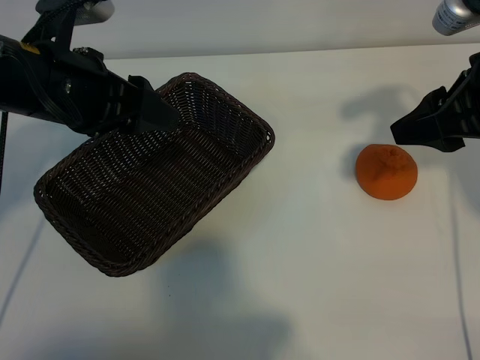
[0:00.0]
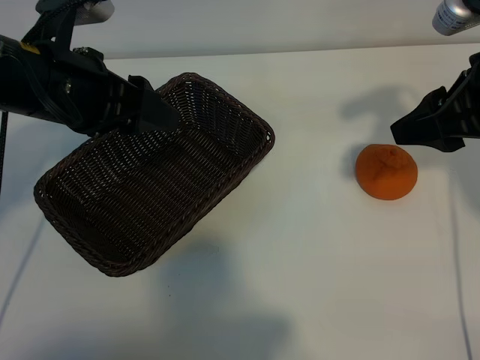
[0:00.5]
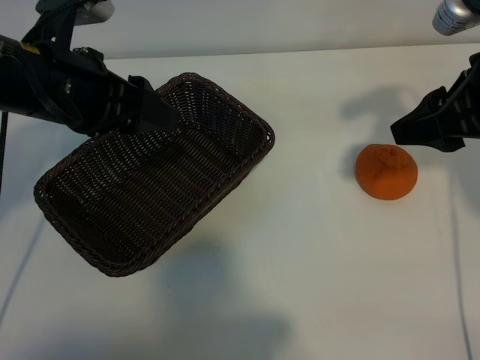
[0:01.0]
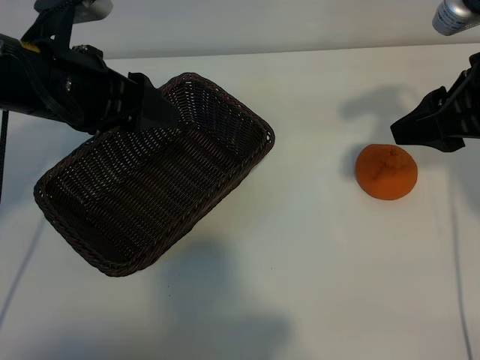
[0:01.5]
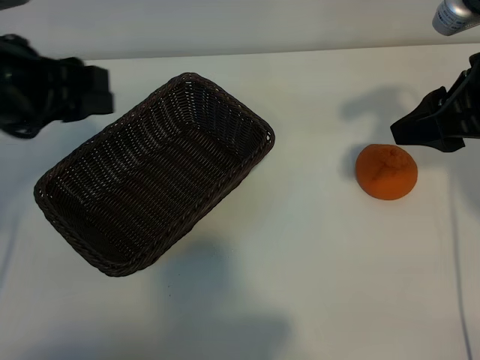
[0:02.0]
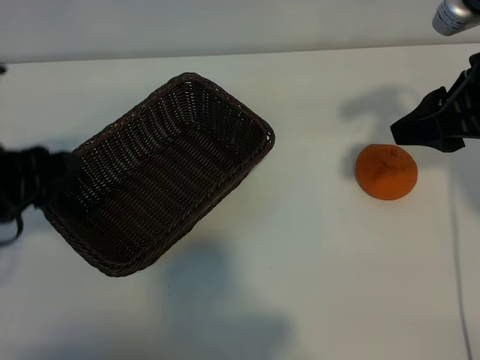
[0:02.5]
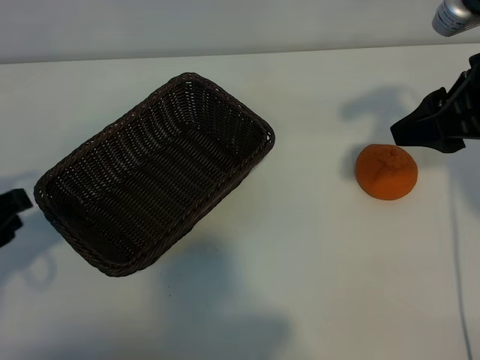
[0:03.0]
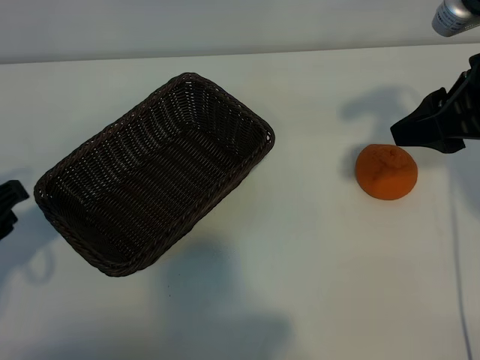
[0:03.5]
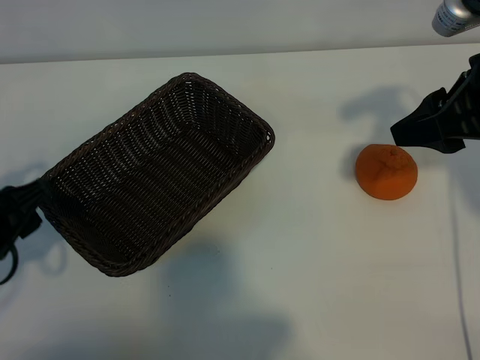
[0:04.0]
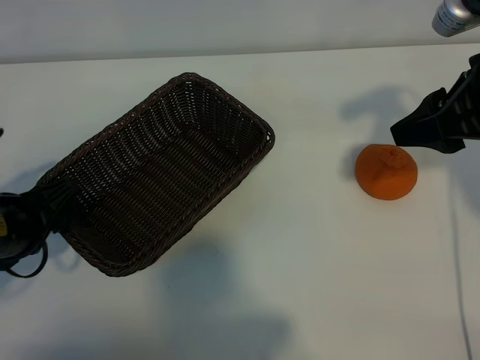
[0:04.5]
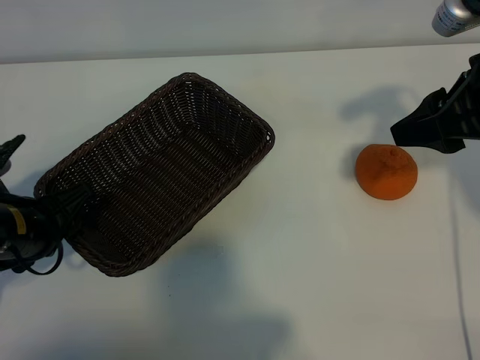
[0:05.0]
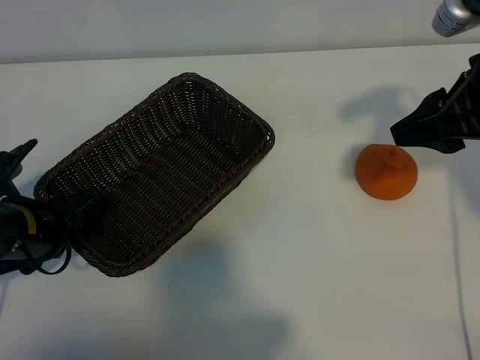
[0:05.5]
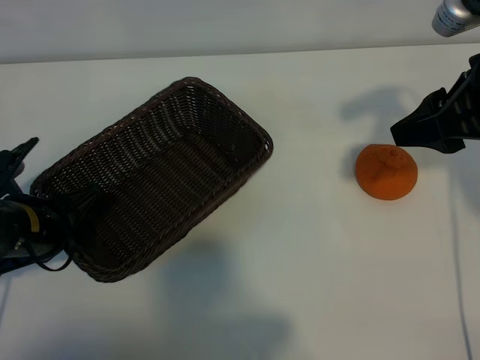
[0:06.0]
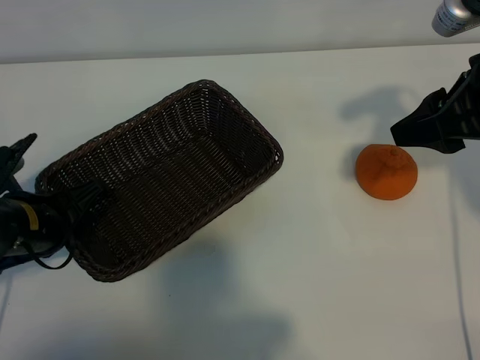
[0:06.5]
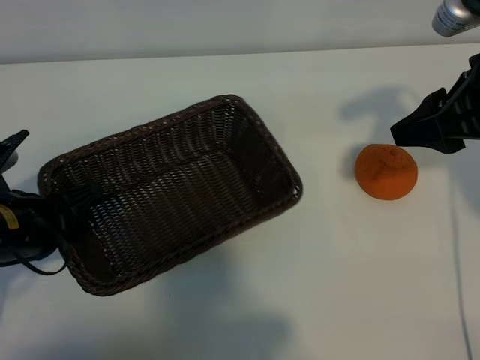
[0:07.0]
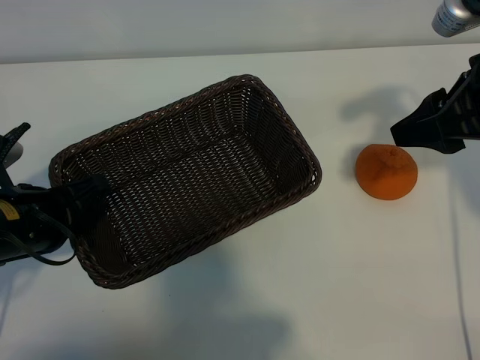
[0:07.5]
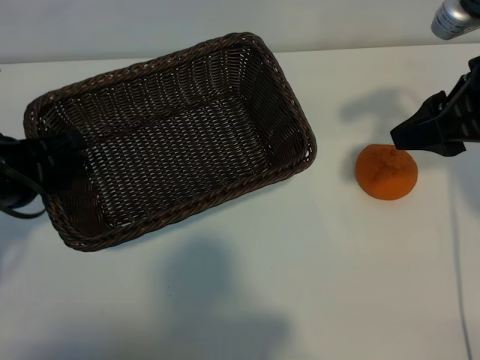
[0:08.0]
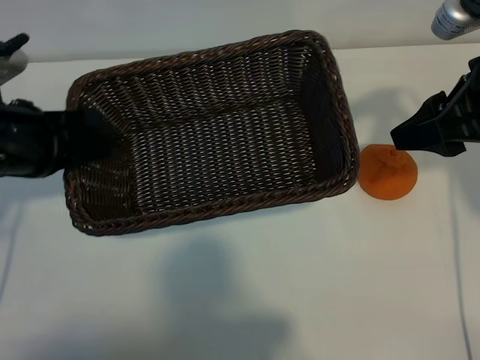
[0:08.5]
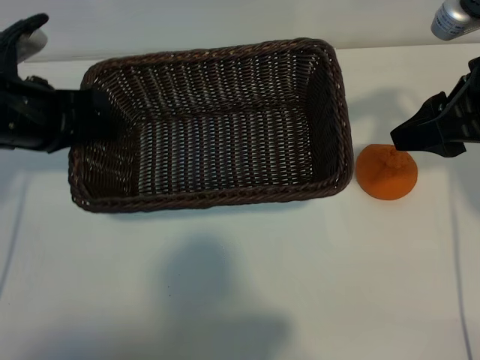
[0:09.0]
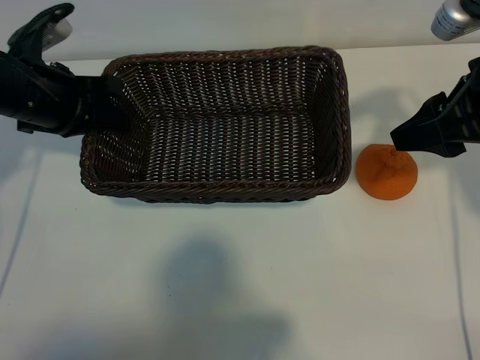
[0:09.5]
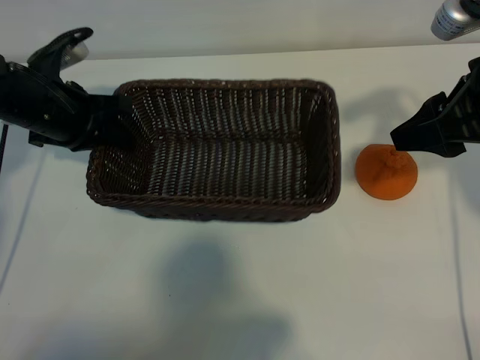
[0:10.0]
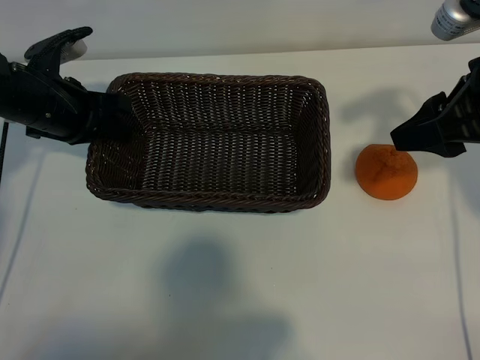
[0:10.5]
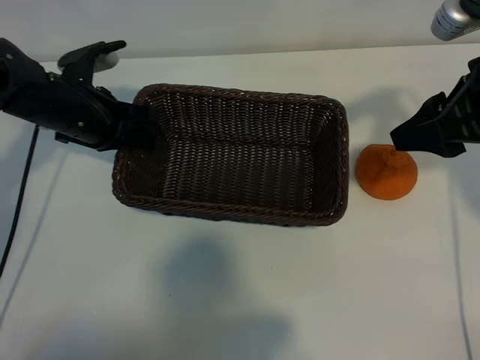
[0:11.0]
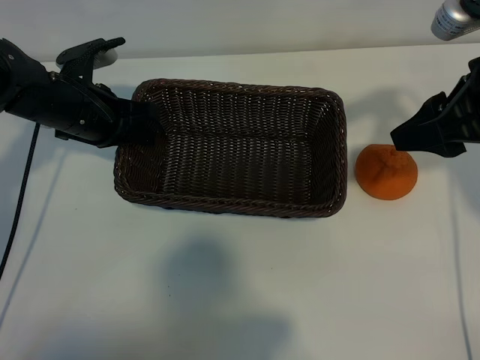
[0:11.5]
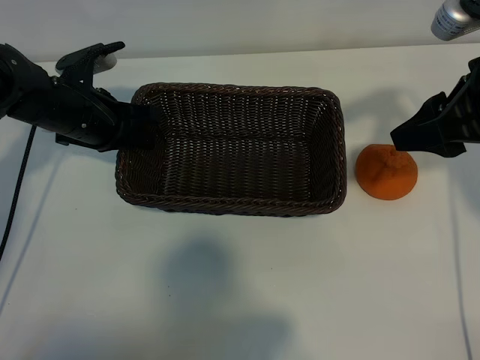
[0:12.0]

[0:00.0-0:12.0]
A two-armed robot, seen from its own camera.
Task of the whole recording: pick up the orange and put it into the basket.
Step, 0:01.5 to 0:06.0: Grasp the basket with left gripper.

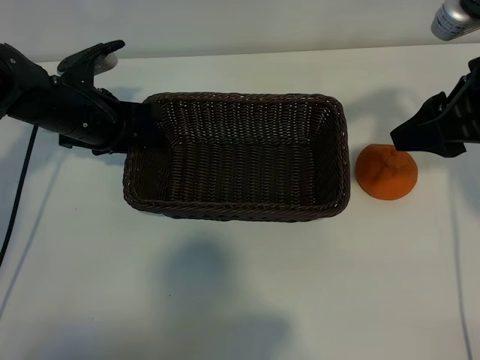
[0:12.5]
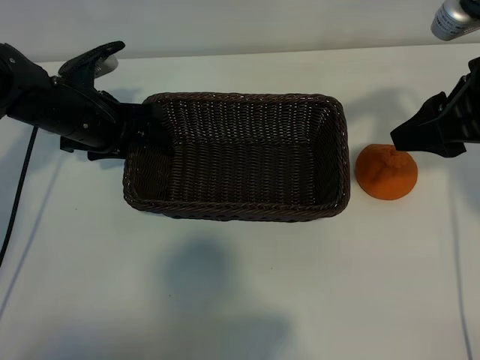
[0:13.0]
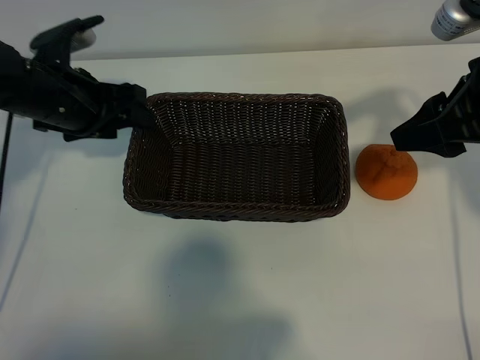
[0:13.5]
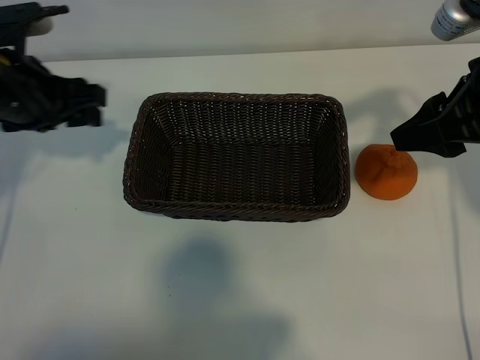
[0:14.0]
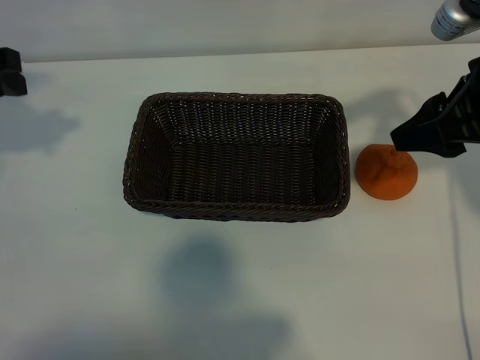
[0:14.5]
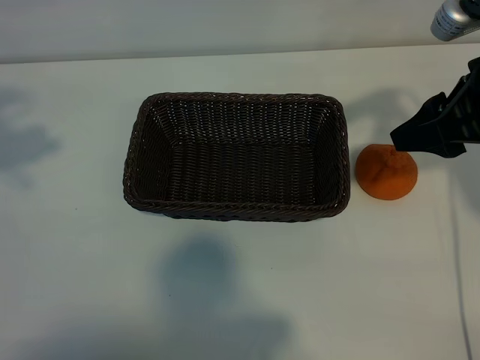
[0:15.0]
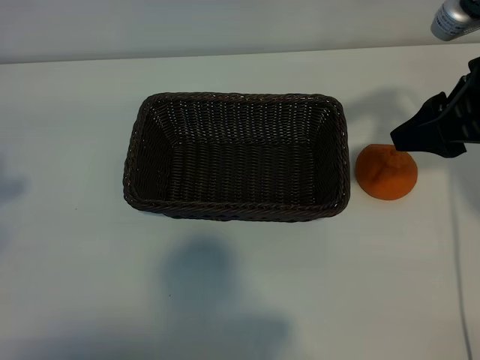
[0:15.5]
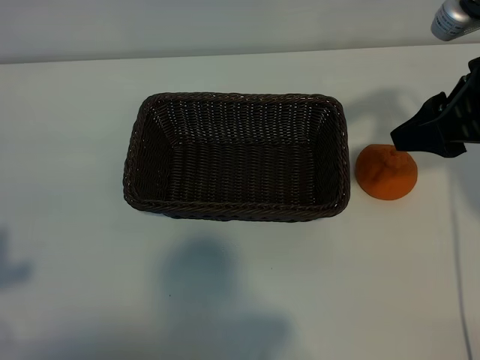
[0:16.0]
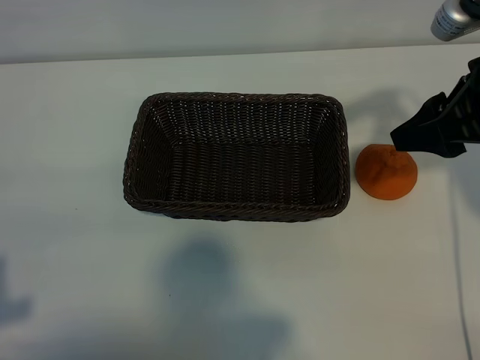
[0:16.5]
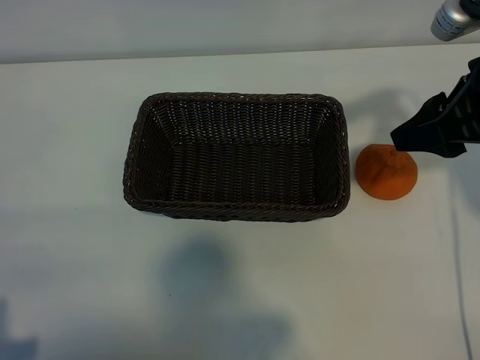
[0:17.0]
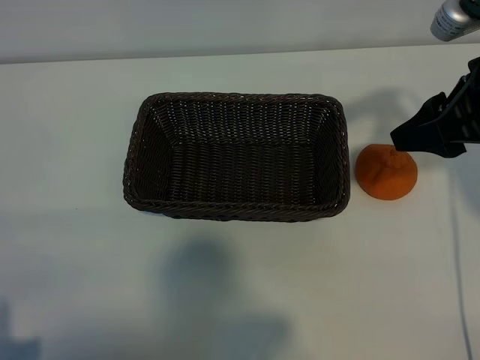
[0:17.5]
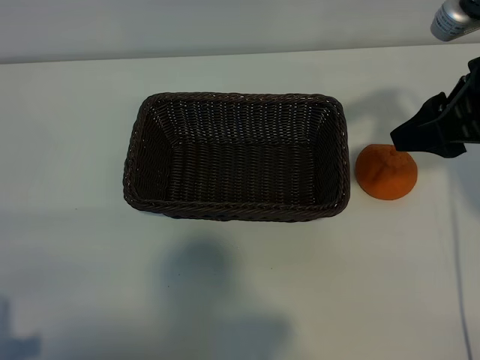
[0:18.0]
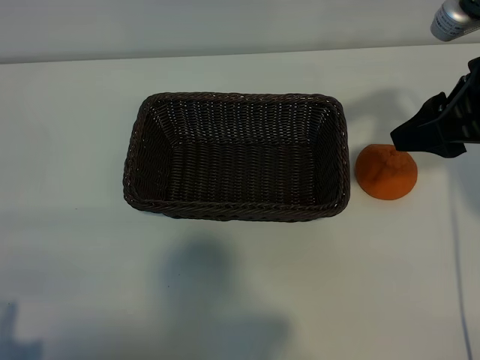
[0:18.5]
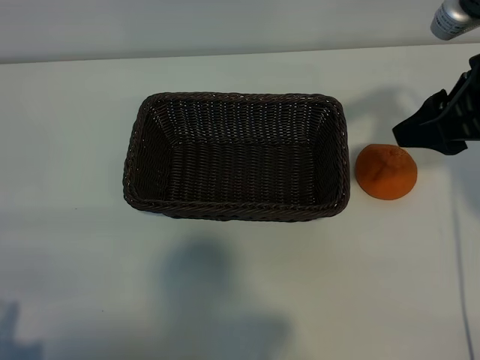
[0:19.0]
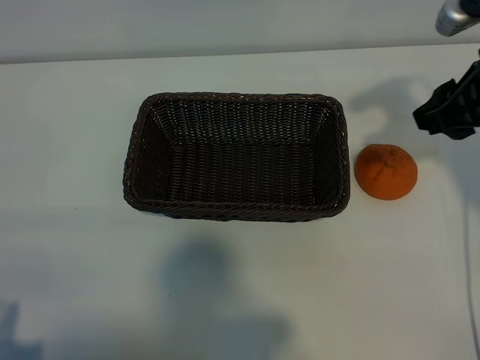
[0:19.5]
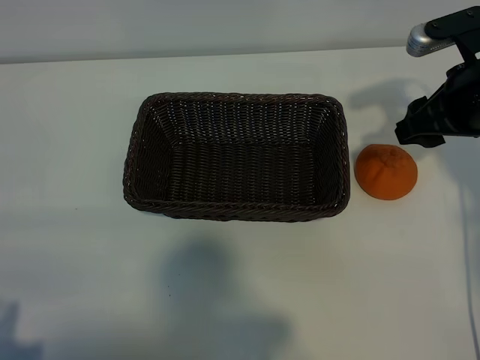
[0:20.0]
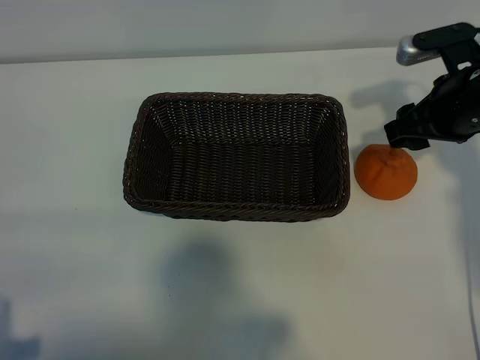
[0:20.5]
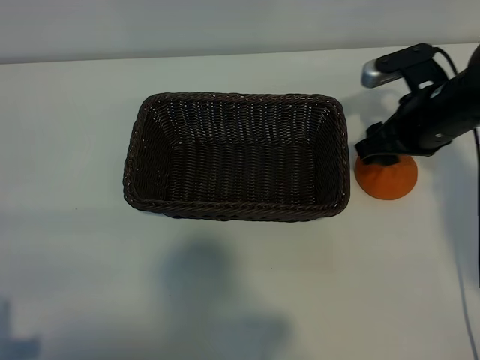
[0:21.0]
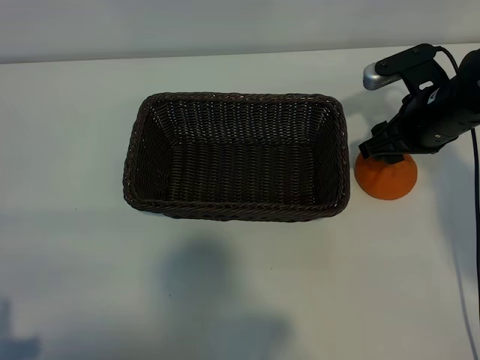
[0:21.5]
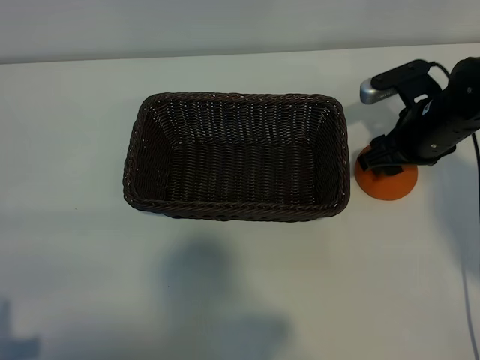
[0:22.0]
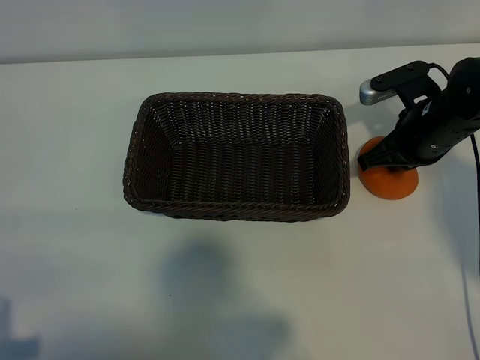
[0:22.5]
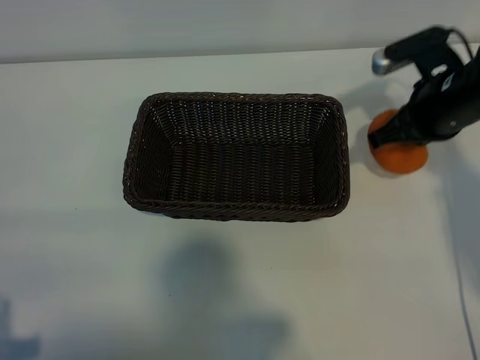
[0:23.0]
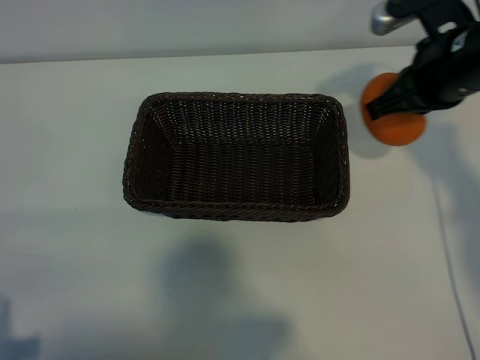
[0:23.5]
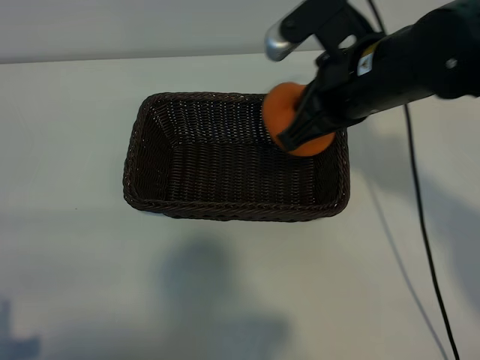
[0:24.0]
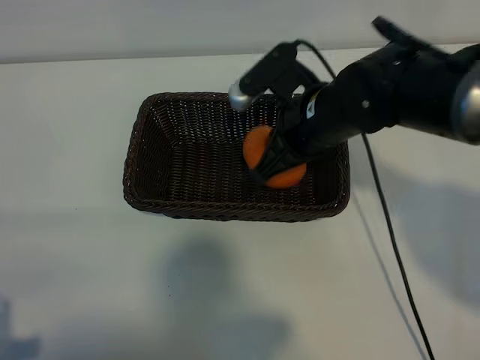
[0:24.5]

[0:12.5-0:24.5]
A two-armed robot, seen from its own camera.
Task of the whole recording: pick up the orange and put it into the basket.
Step, 0:12.5 to 0:22.0: Grasp the orange with right gripper.
